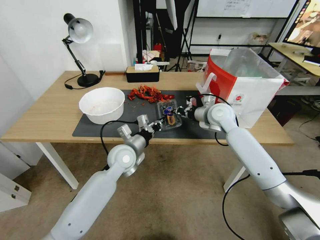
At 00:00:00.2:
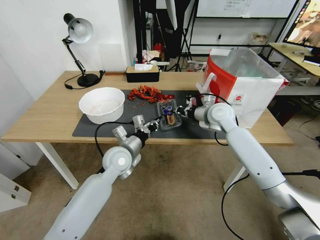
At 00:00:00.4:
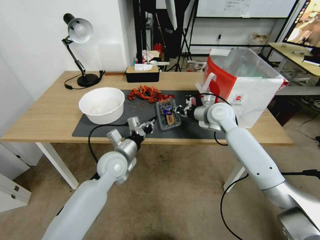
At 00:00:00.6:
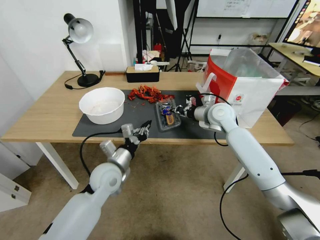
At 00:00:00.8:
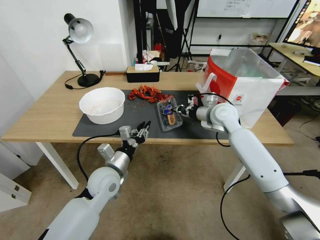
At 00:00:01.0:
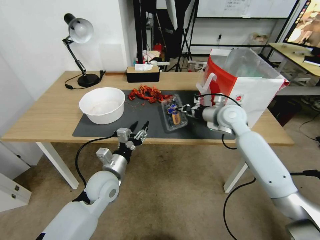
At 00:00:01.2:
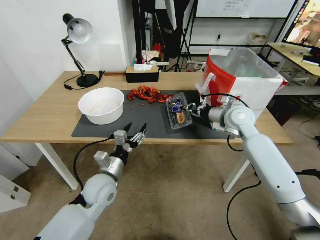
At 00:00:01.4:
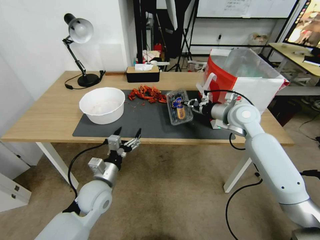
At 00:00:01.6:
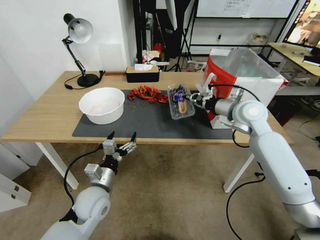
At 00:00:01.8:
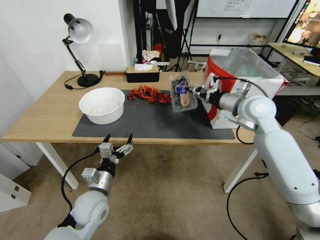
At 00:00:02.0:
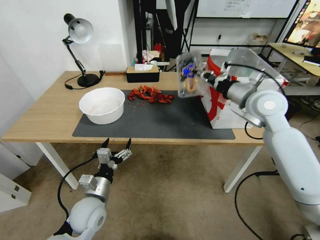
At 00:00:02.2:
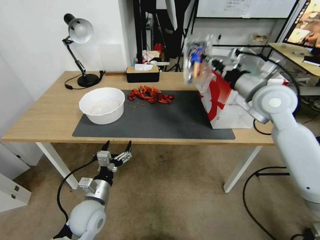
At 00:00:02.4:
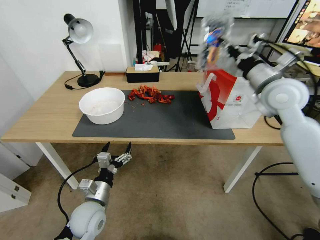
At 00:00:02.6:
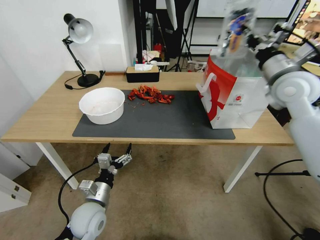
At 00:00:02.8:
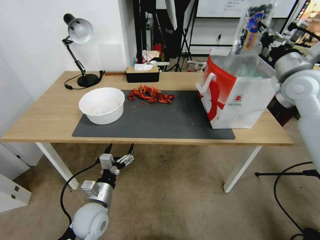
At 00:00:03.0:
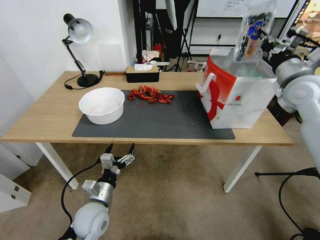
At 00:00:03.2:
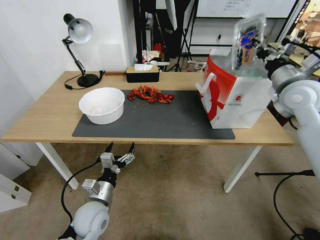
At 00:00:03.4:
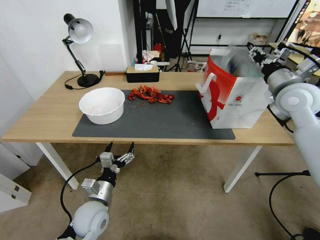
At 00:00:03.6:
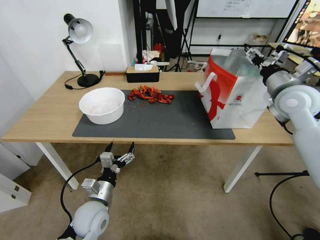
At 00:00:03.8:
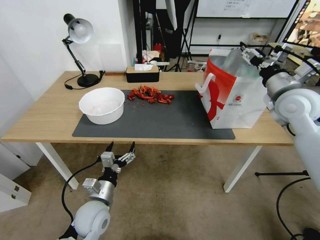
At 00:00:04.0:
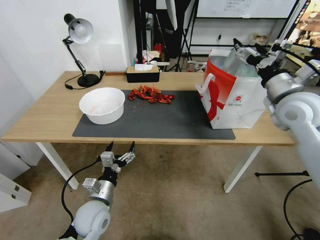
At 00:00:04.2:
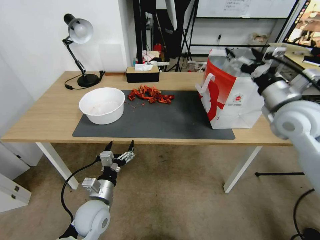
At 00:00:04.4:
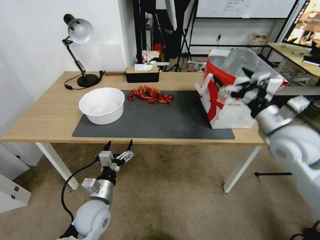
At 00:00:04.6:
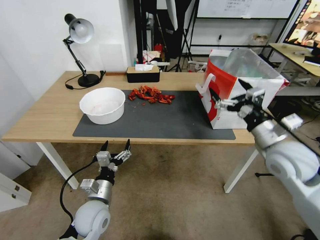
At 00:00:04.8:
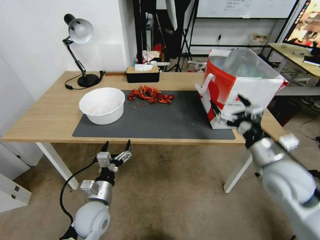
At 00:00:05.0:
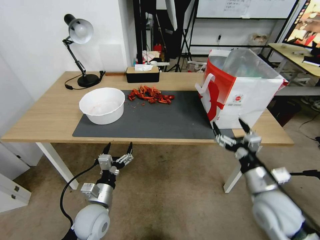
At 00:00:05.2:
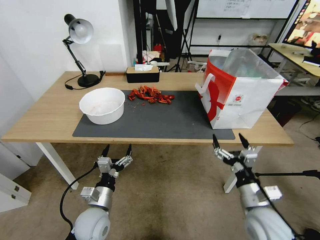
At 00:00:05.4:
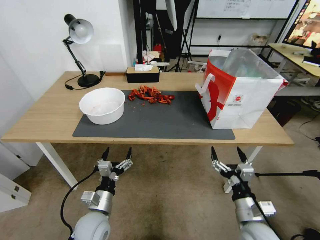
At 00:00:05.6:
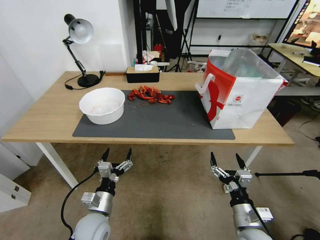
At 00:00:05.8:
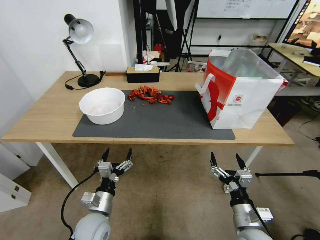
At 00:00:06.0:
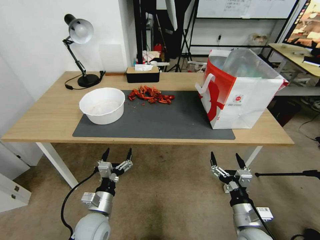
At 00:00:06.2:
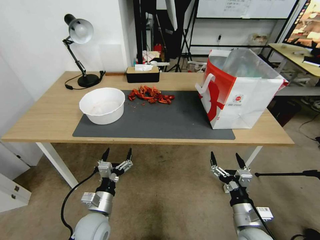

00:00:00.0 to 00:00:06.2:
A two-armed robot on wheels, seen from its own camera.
Task of the whole recording: Close the takeout container lid, then place the container into the takeout bag.
00:00:00.0 to 00:00:01.6: The left gripper heads backward, to the left and downward, covering some 15 cm, and opens its fingers; the right gripper goes about 10 cm to the right and upward.
00:00:01.6 to 00:00:03.2: The right gripper heads to the right and upward, covering roughly 15 cm.
00:00:03.2 to 00:00:04.6: The right gripper travels backward, downward and to the left by some 15 cm, and opens.
00:00:04.6 to 00:00:06.2: The right gripper travels downward and backward by approximately 25 cm.
